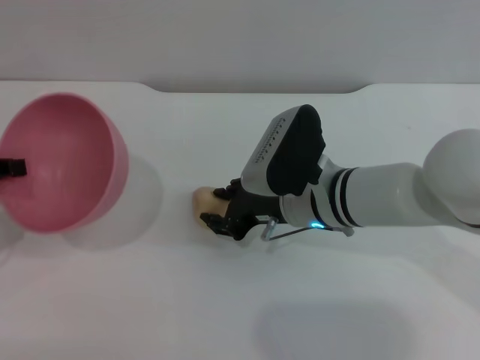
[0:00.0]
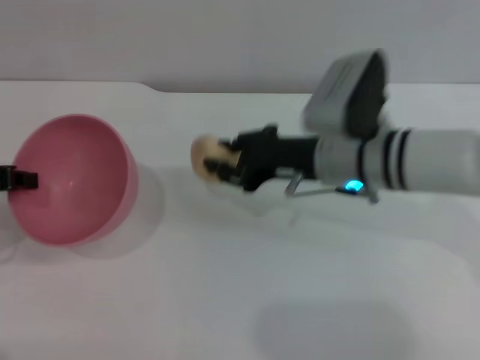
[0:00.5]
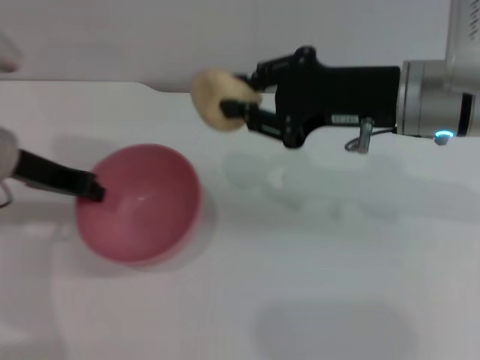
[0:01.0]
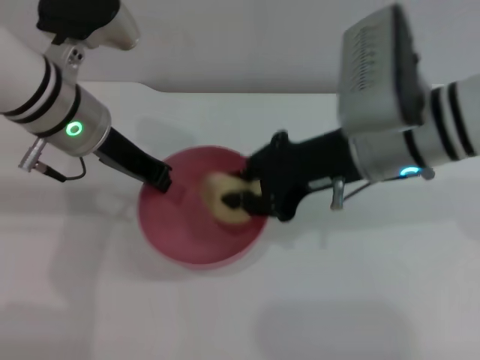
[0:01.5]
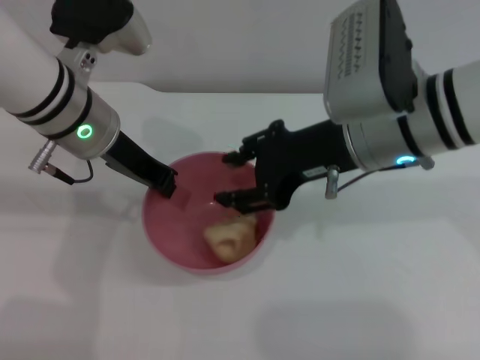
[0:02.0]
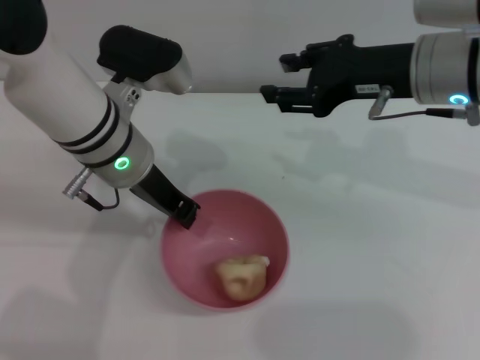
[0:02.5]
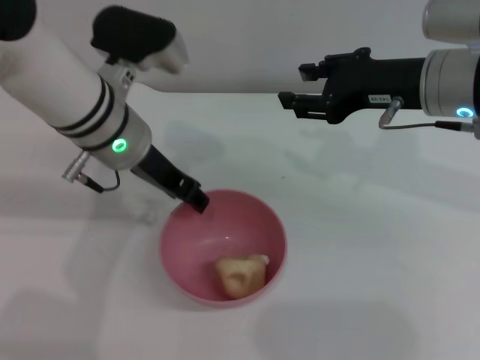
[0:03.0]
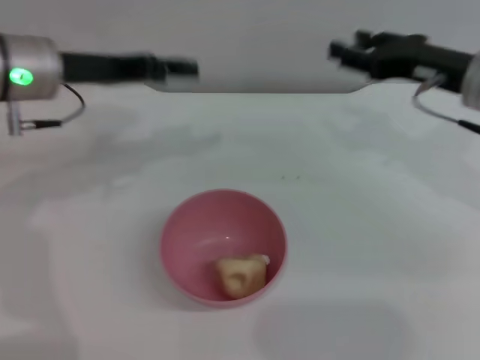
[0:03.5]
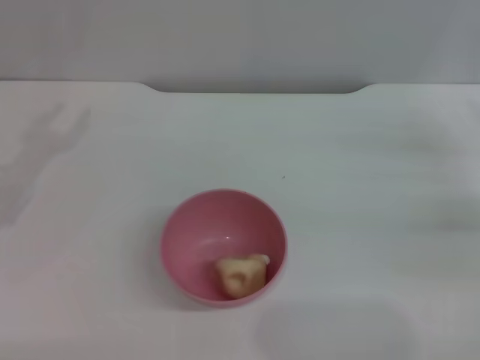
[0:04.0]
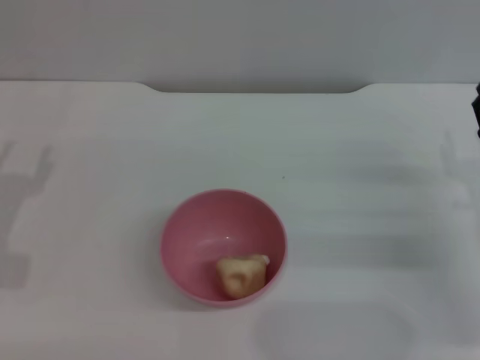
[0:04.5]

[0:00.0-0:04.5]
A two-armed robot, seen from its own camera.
Task of the whole recording: put the egg yolk pastry into the pink bowl and pour it out repeatedly.
Step, 1.0 to 1.5 s: Place the egg yolk pastry into the bowl.
Step, 2.0 to 3.0 s: Place the bowl on the table.
0.0 to 2.0 s: The right gripper shifts some 15 cm upward, and closes, then opens again, while the left gripper goes roughly 20 cm to the right and forward.
2.0 to 4.5 s: The right gripper heads to the right and downward, covering about 25 cm; the left gripper is displaced to the left, backward and downward by about 25 cm, and opens.

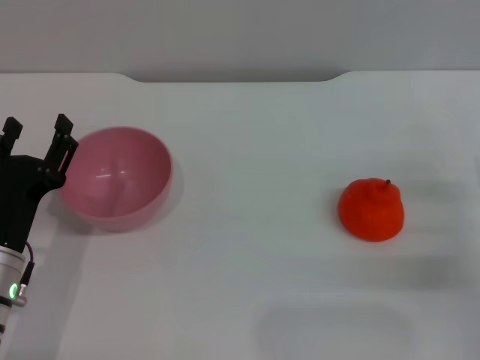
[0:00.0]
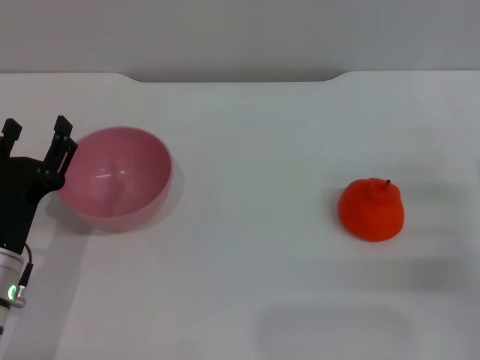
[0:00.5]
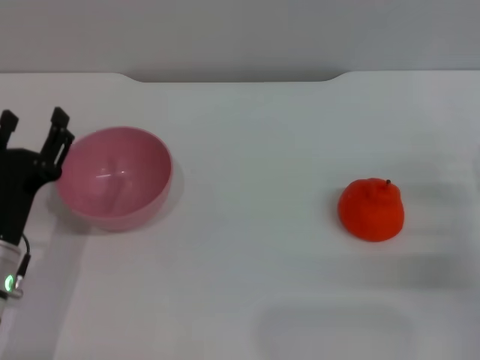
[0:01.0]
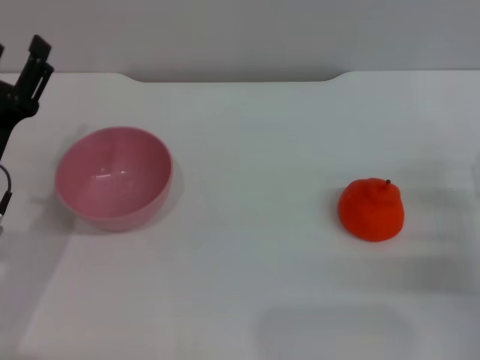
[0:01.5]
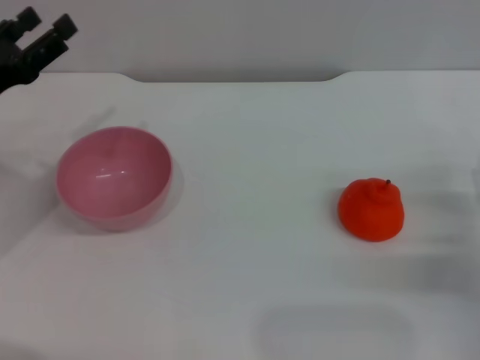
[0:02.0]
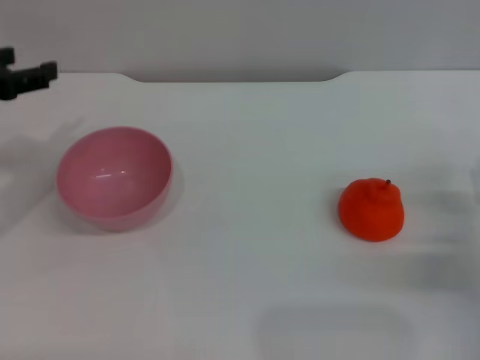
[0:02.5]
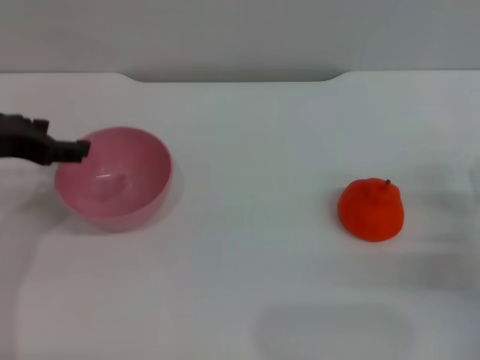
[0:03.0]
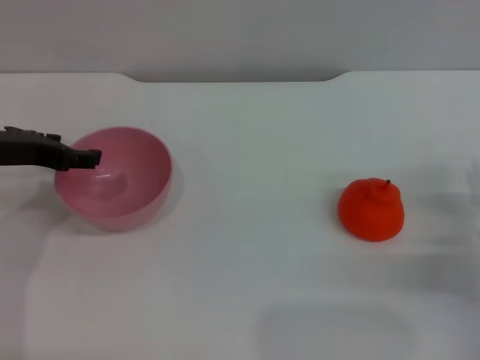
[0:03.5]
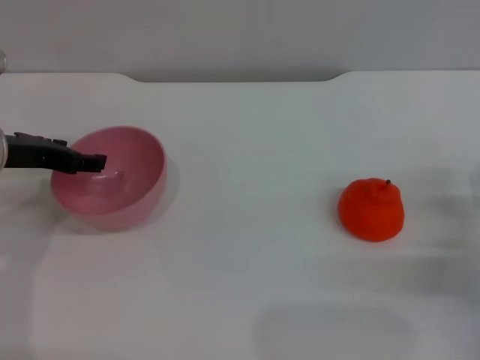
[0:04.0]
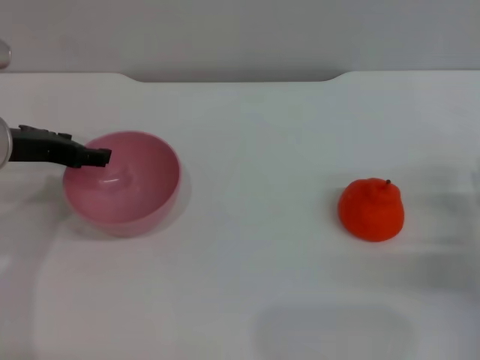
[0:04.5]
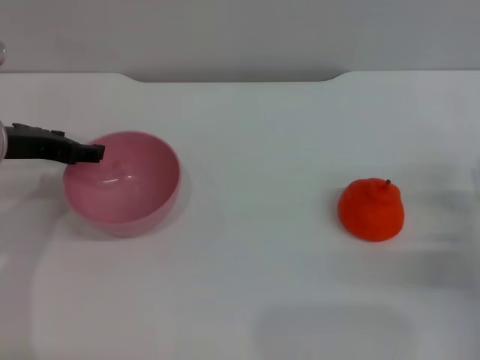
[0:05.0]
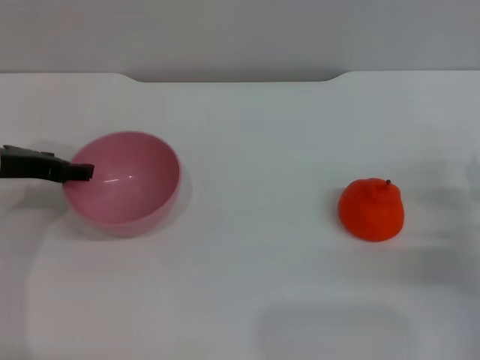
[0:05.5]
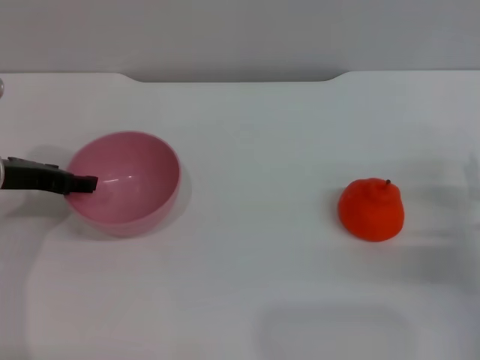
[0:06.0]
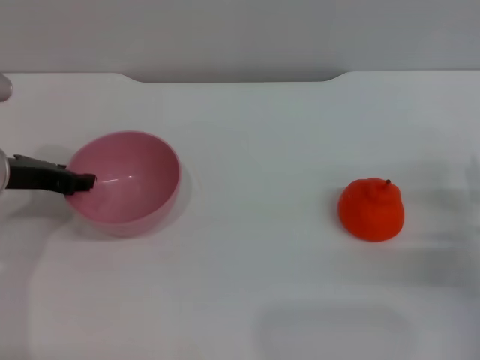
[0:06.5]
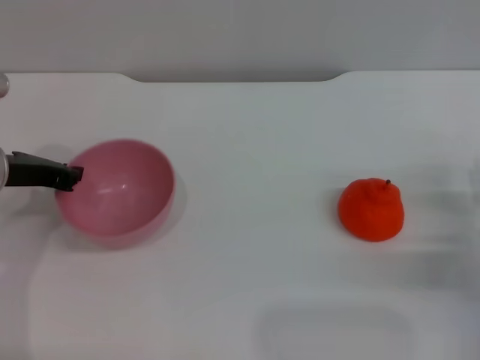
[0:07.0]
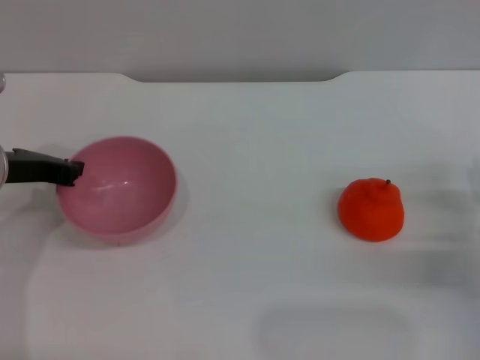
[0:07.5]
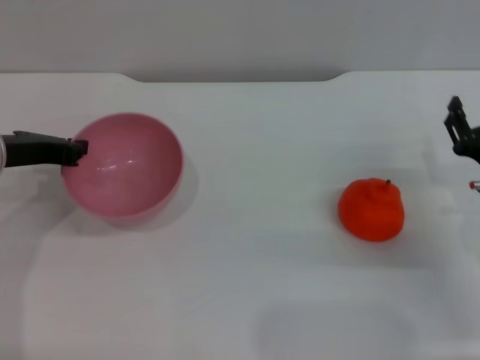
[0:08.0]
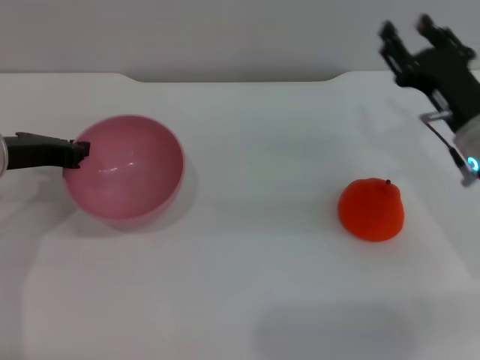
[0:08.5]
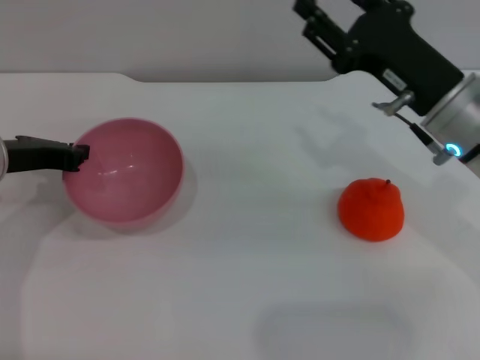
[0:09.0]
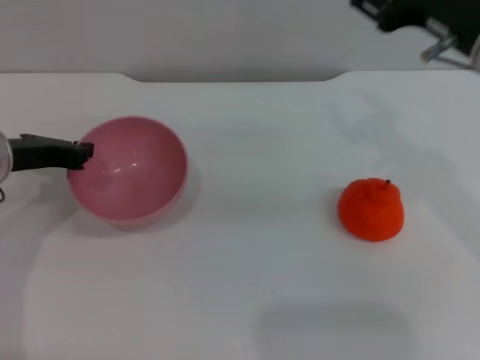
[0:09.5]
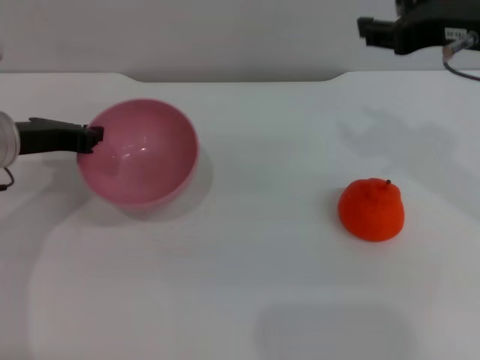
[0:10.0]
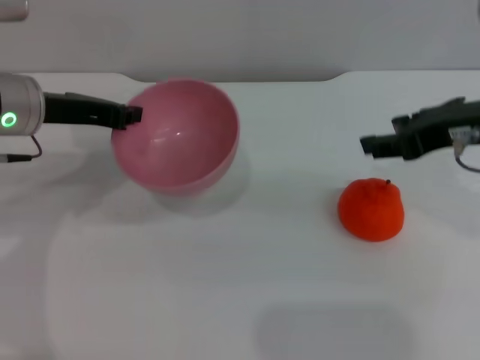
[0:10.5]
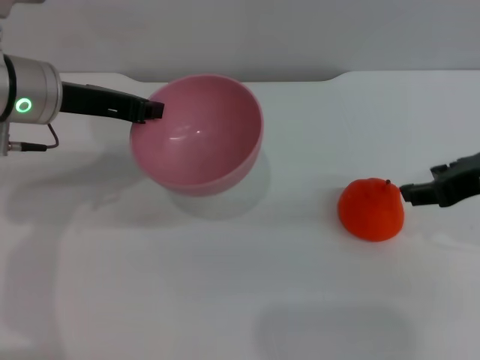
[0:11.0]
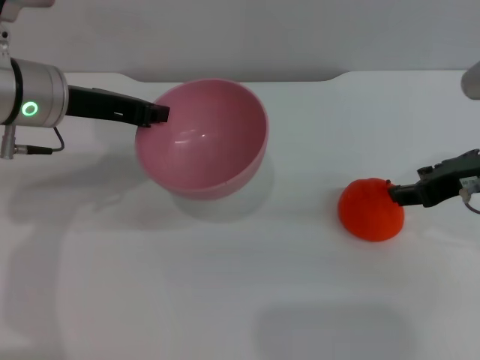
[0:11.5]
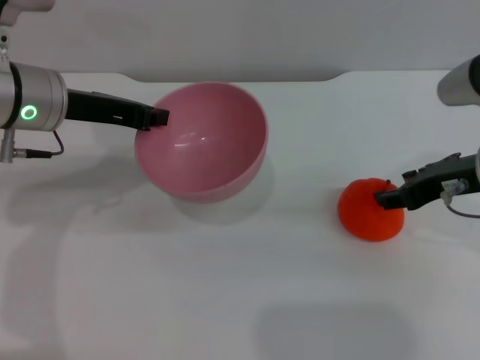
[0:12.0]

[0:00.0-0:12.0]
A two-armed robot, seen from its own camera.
Task of the whole recording: put the orange into the pink bowl and pour it out repeatedly.
Step, 0.0 to 8.0 s: Pick up the bowl with the left gripper.
0.0 to 2.0 s: The left gripper heads upward, forward and to the left, covering roughly 15 cm.
4.0 to 6.0 s: The grippers stay close to where they were, moving slightly.
6.0 to 8.0 s: The left gripper closes its fingers.
8.0 to 10.0 s: The right gripper travels upward by approximately 25 cm.
10.0 to 12.0 s: The left gripper shifts roughly 5 cm to the right; the right gripper goes roughly 10 cm downward.

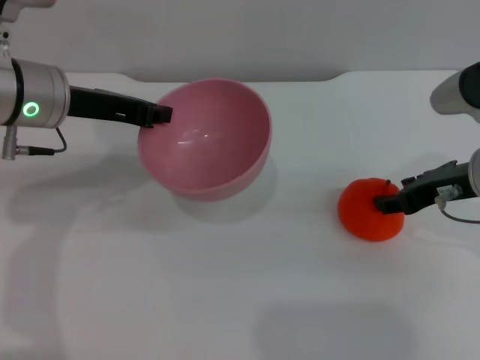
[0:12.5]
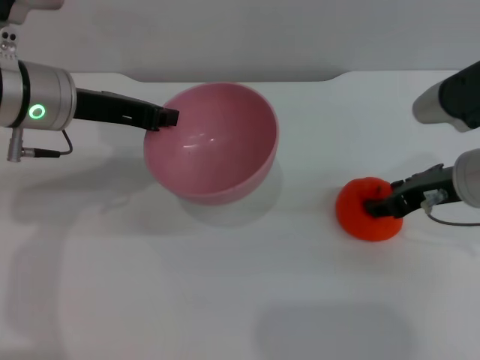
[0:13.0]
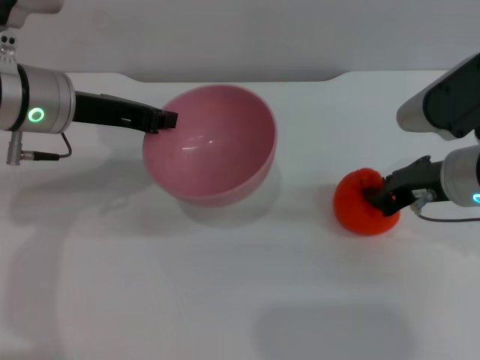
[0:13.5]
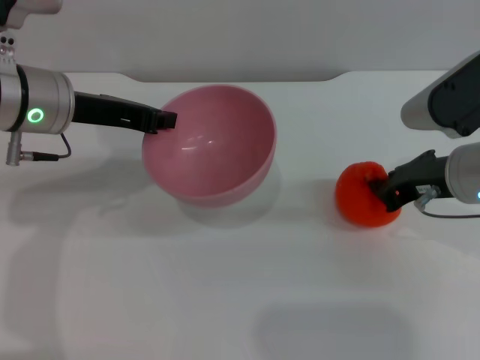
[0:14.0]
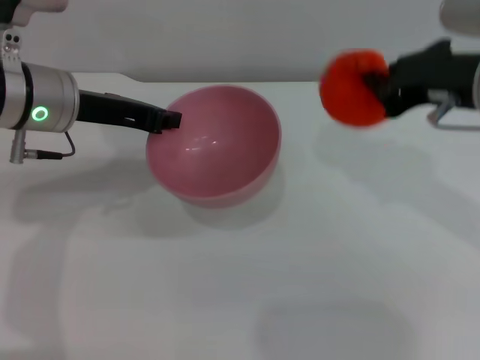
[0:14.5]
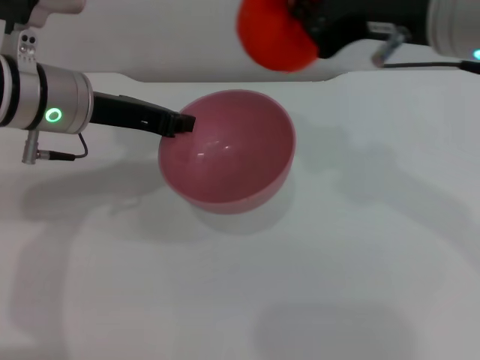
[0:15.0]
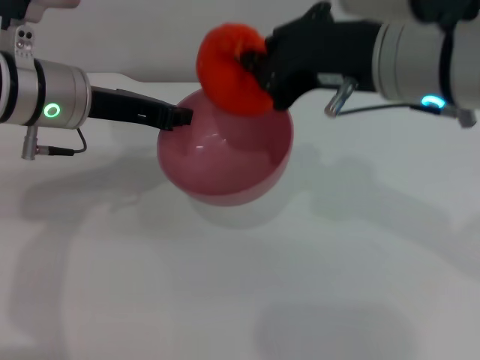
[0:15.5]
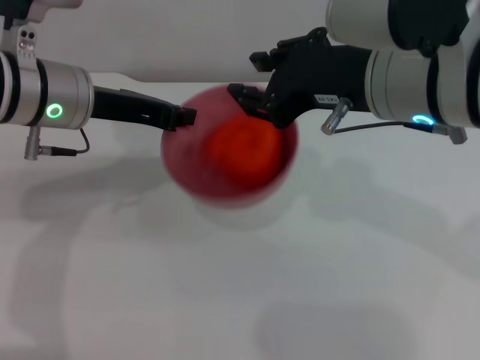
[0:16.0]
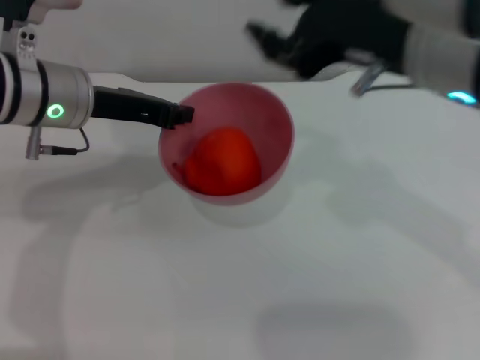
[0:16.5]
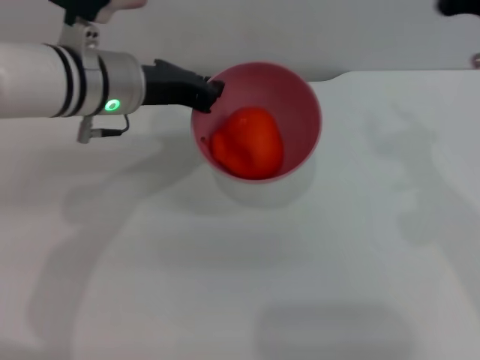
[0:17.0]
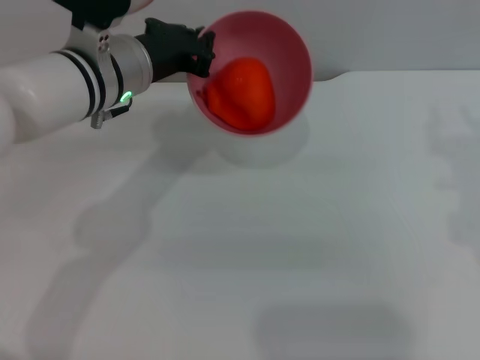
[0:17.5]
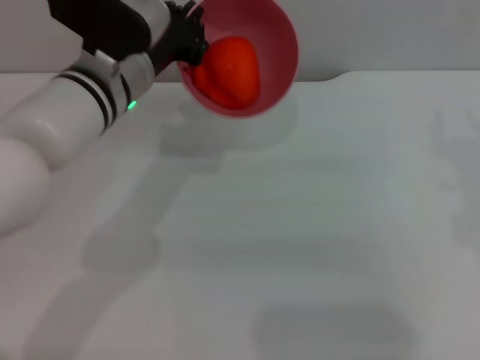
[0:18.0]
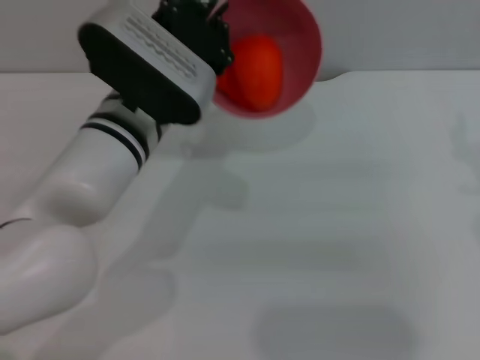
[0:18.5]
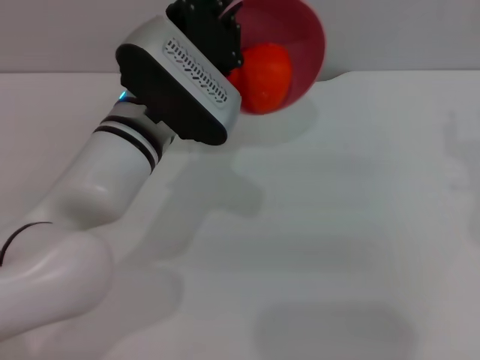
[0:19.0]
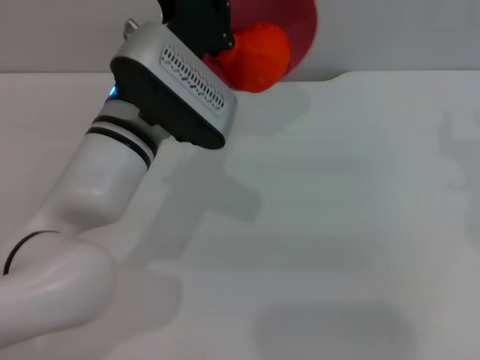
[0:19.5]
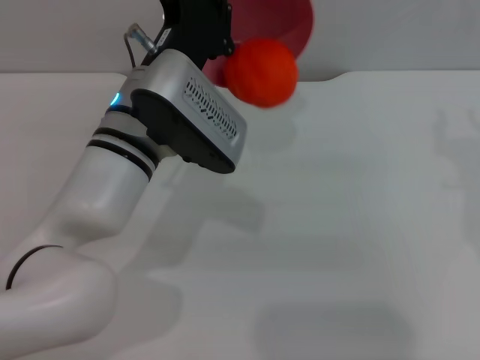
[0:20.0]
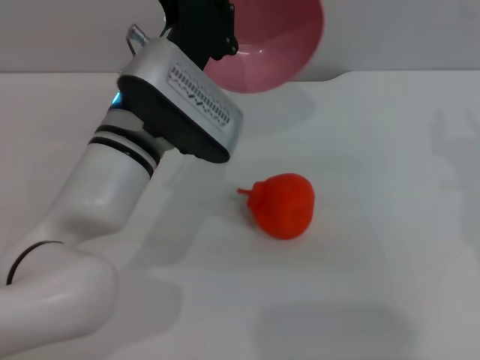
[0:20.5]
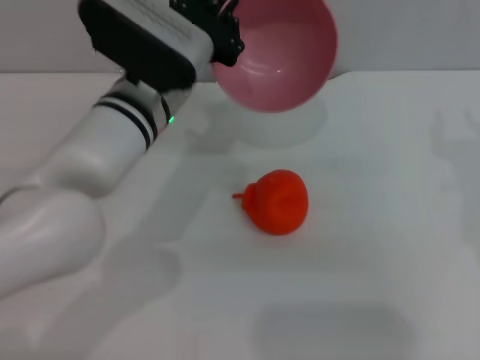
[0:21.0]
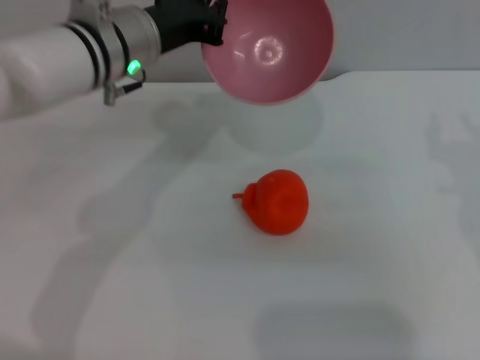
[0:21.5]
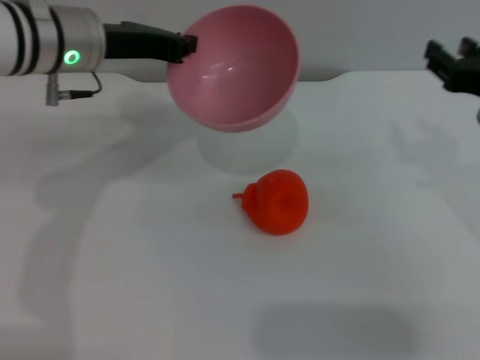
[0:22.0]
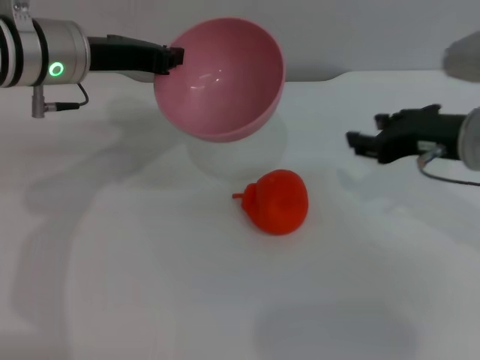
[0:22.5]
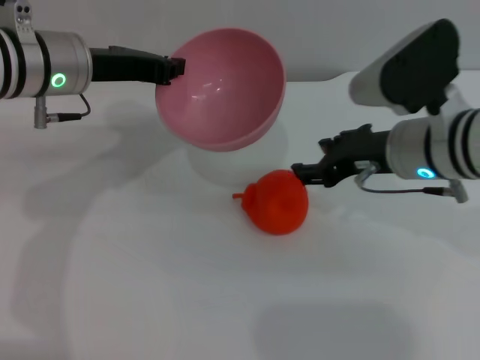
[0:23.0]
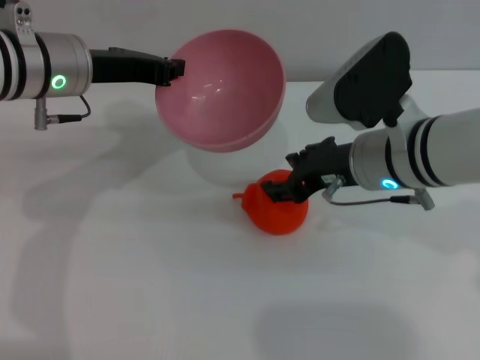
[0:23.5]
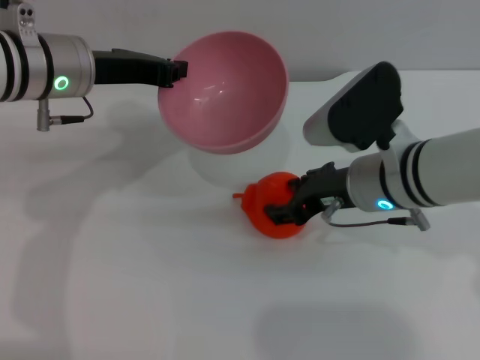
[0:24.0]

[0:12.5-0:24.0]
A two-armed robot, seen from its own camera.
Task of the whole recording: put the orange into the pink bowl and pour it out repeatedly.
Step, 14.5 to 17.5 s: Place the orange into the bowl.
Step, 18.0 to 21.0 s: Pour the orange out of the bowl.
12.5 to 14.5 s: The right gripper moves upward, roughly 10 cm, and closes its fingers.
14.5 to 16.5 s: The right gripper goes about 5 cm to the left, and opens.
16.5 to 18.5 s: The left gripper is displaced to the right by some 10 cm. Meanwhile the right gripper travels to the right and downward by about 15 cm.
20.0 to 22.0 s: The right gripper moves some 5 cm. Meanwhile the left gripper heads to the left, forward and upward, covering approximately 15 cm.
22.0 to 24.0 s: The right gripper is displaced to the left and downward by approximately 15 cm.
